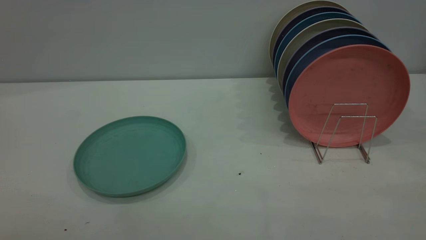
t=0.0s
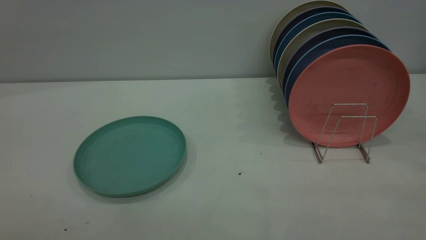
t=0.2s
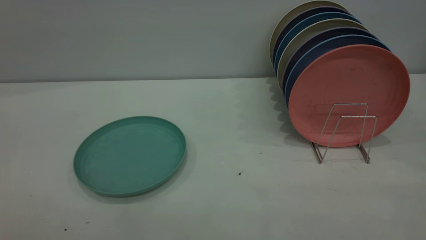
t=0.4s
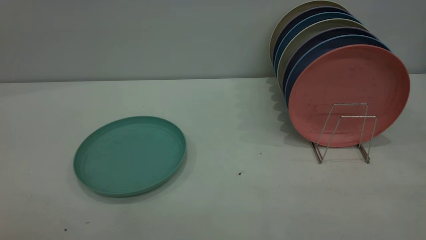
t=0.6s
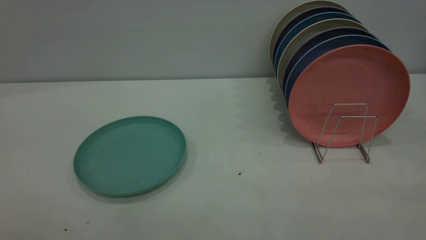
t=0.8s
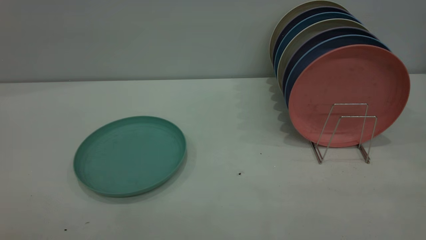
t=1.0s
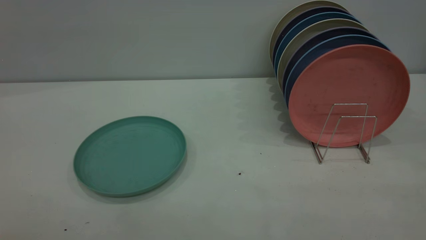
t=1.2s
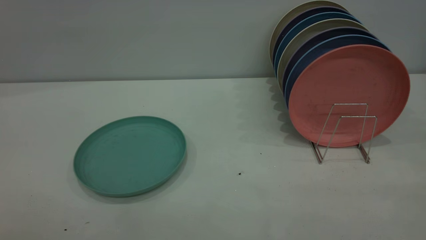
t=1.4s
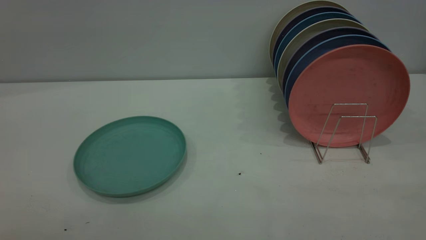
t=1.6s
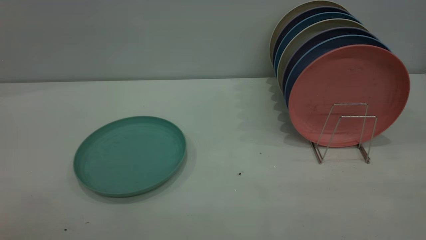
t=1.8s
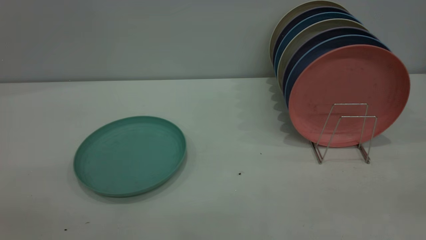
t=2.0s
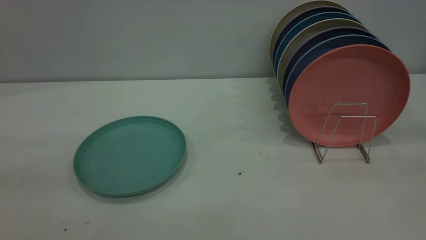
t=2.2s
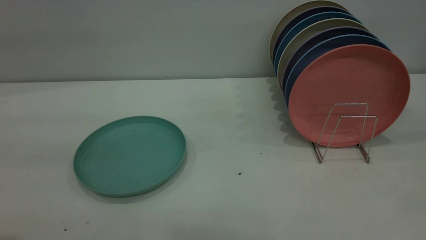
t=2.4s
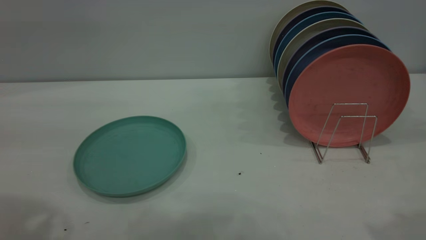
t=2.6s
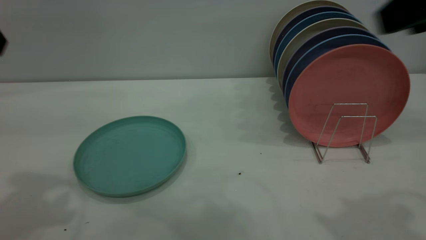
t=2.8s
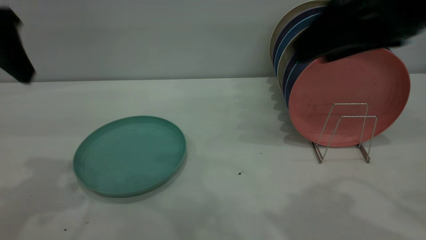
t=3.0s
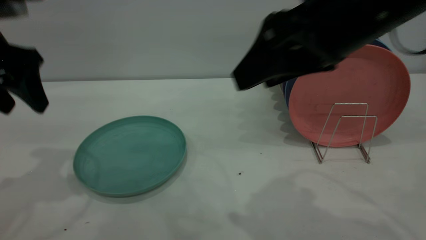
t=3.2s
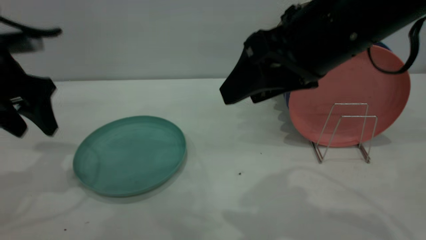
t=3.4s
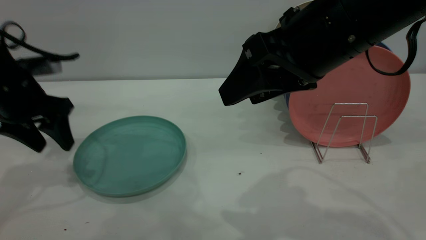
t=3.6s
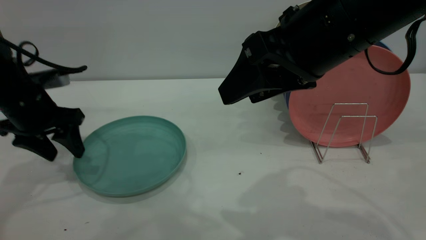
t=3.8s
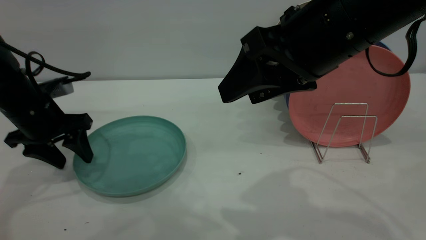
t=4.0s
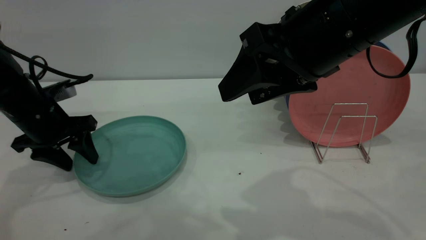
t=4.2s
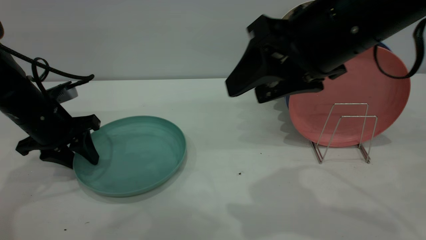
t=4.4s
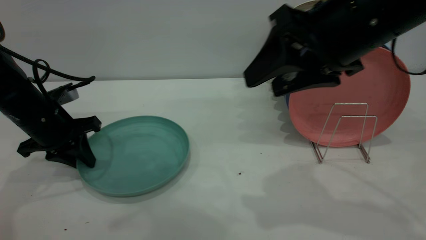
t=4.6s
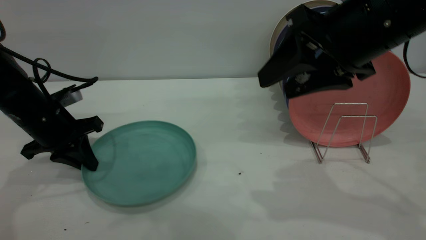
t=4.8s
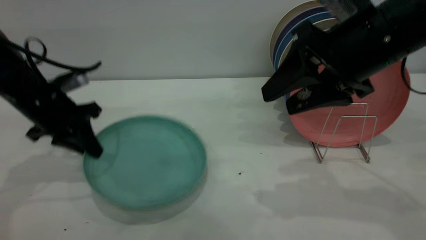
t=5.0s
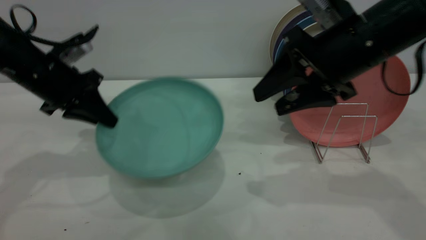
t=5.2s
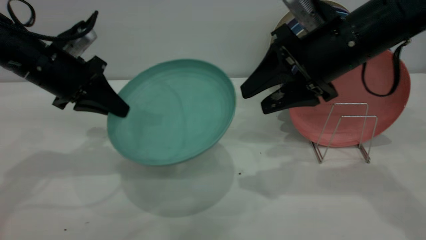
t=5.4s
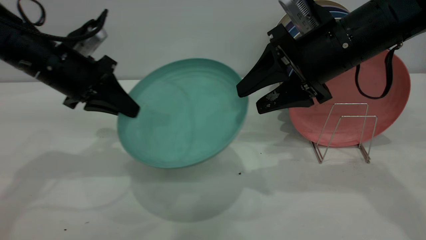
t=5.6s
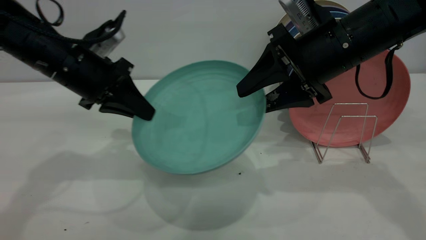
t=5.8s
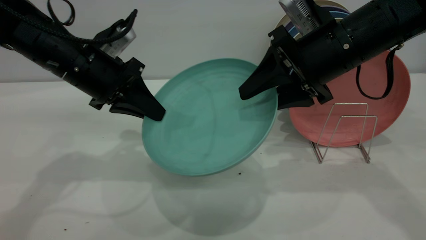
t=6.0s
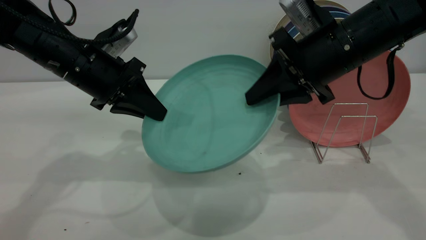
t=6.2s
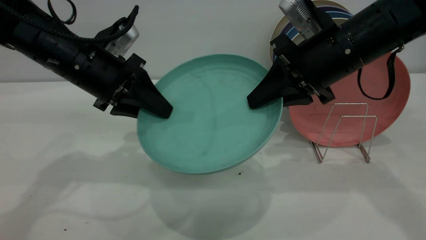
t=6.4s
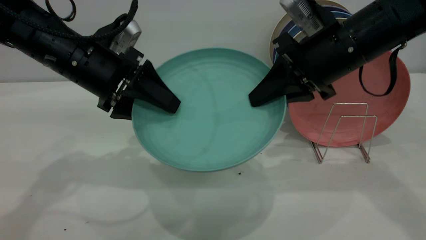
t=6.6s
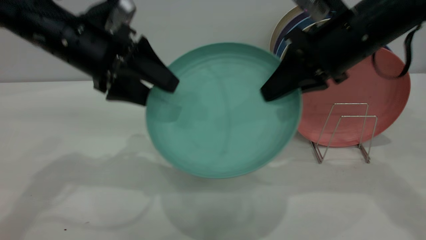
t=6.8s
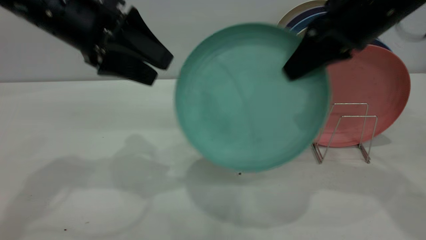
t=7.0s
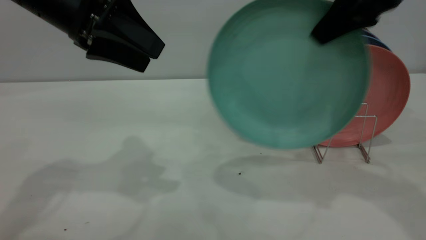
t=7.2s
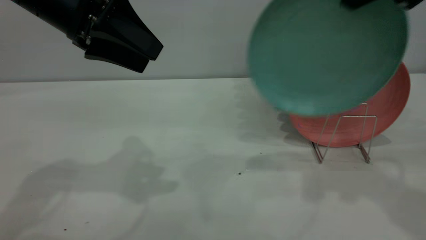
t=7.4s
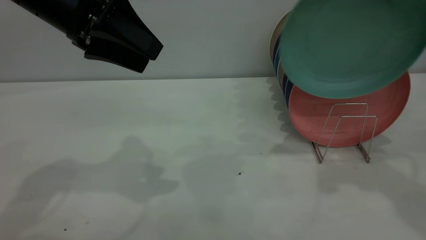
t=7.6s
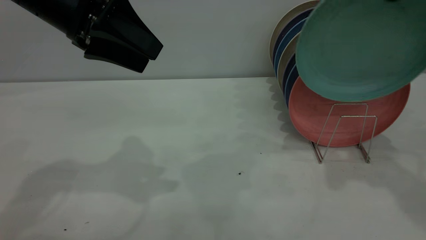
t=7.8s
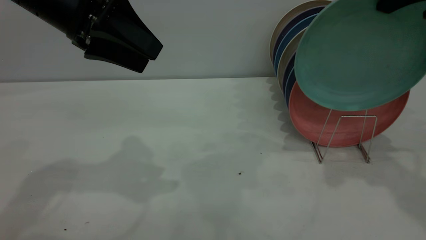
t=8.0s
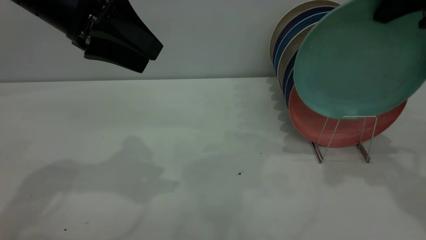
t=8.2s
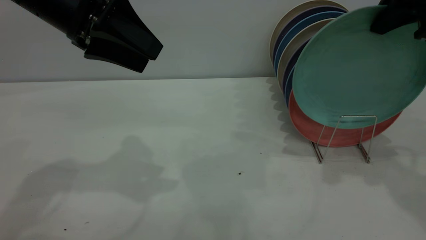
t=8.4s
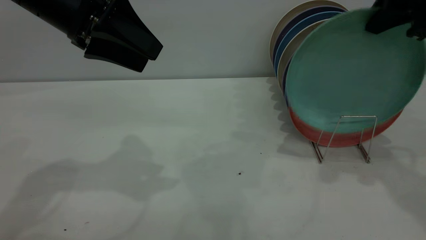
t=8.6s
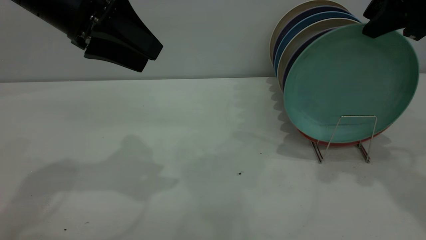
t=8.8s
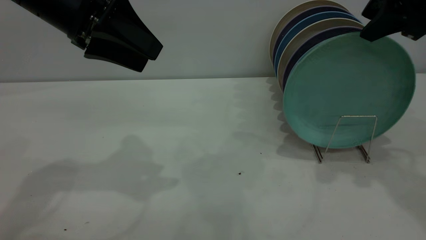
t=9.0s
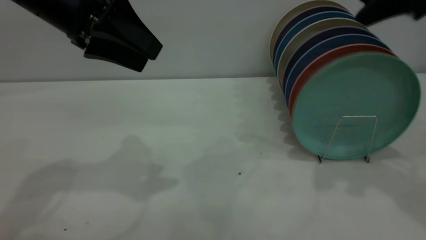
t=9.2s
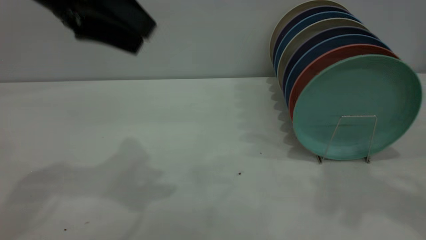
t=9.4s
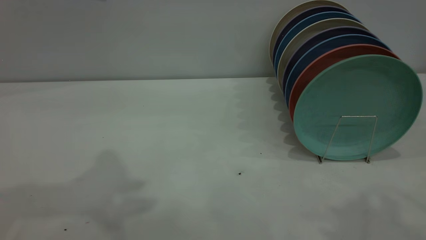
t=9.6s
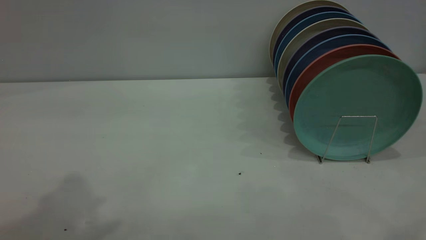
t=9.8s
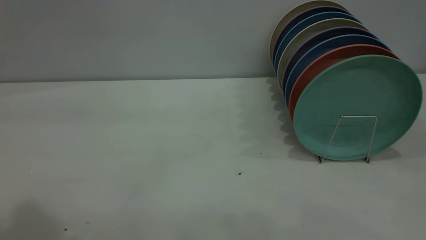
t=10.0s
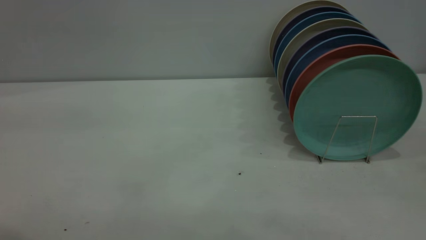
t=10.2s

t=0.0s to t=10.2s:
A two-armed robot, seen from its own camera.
Task of the whole recording: the left gripper grasp the green plate, the left gripper pass the green plate to the right gripper, and the right gripper place the green plate on the plate rack.
Step, t=0.0s to t=4.8s: Pick up the plate with the left gripper.
Step, t=5.0s to t=7.0s: Pass the plate from the left gripper to the right gripper.
Step, t=7.2s to t=9.2s: Place the plate on the shelf.
t=0.0s to t=1.4s: Both grippers stay about where they are.
t=1.4s to t=3.0s: The left gripper is displaced forward by approximately 35 cm, while the right gripper heads forward and to the left, covering roughly 30 cm.
t=3.0s to t=4.4s: The right gripper changes place by roughly 5 cm, while the left gripper goes roughly 20 cm downward and forward.
t=4.4s to t=5.8s: The left gripper is displaced to the right and upward by about 10 cm, and closes its fingers. Meanwhile the right gripper travels forward and downward by roughly 10 cm.
t=5.8s to t=7.2s: The right gripper travels upward and to the right by some 15 cm, and closes up. Meanwhile the left gripper moves upward, roughly 10 cm, and opens.
t=7.2s to t=8.8s: The right gripper shifts by about 5 cm, and opens.
t=8.8s to t=10.2s: The left gripper moves upward and backward, approximately 30 cm. Meanwhile the right gripper heads backward, covering approximately 30 cm.

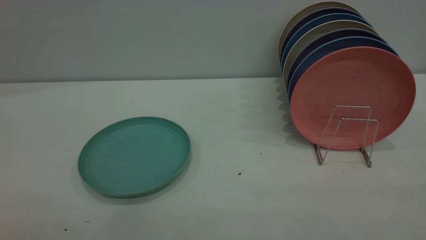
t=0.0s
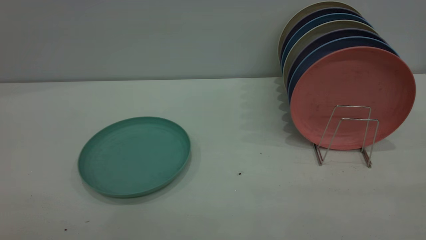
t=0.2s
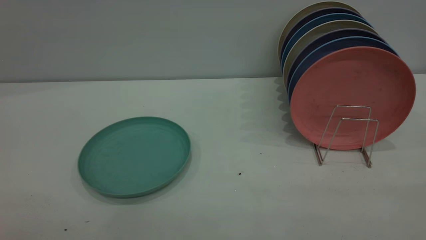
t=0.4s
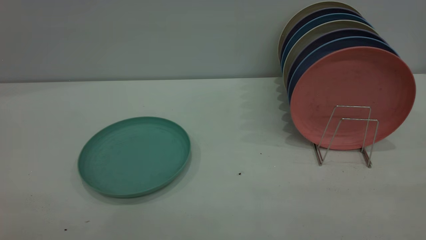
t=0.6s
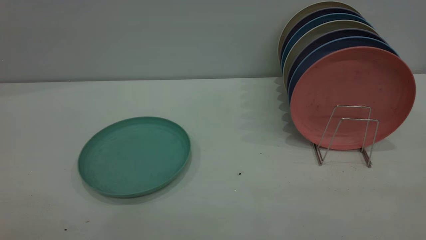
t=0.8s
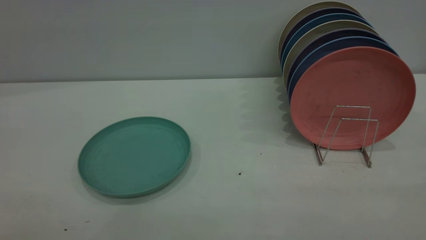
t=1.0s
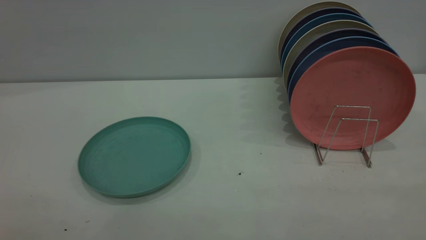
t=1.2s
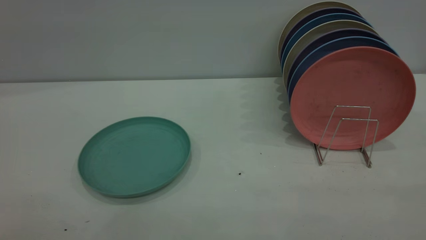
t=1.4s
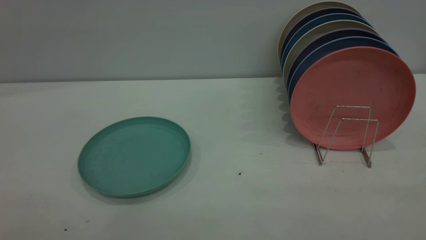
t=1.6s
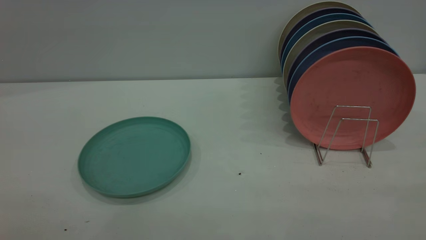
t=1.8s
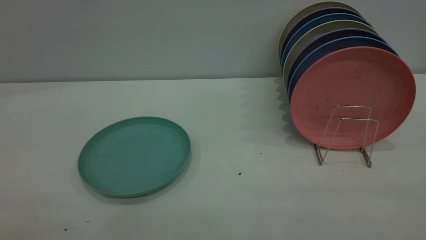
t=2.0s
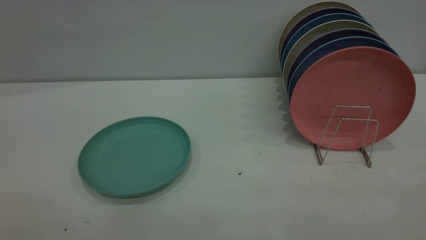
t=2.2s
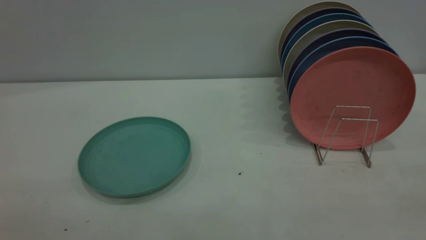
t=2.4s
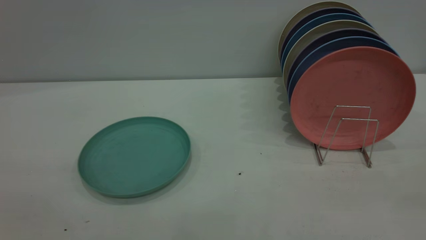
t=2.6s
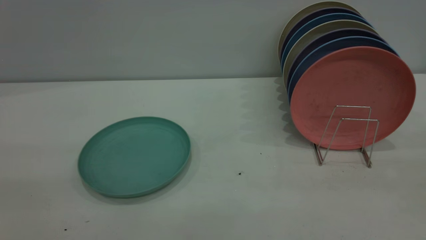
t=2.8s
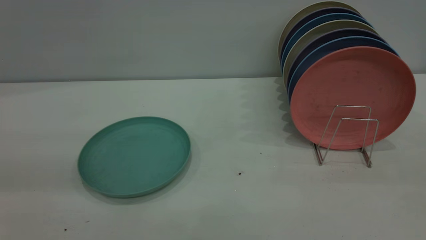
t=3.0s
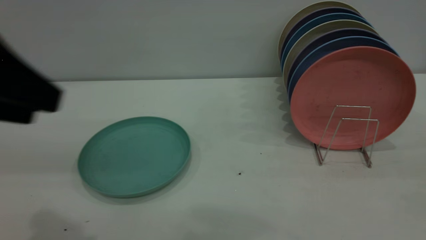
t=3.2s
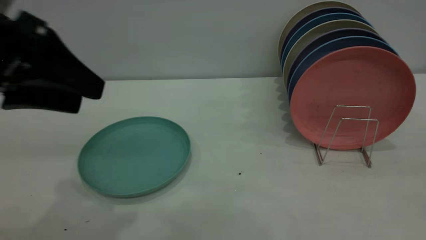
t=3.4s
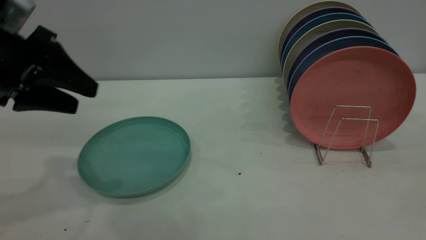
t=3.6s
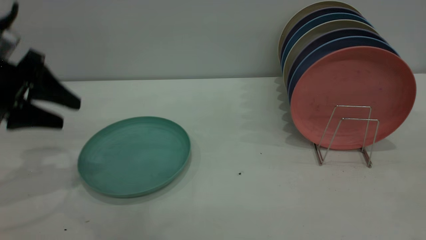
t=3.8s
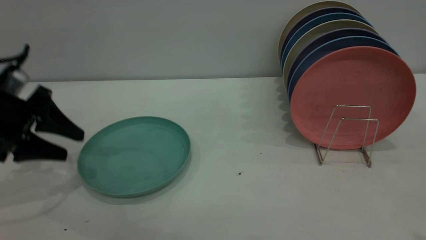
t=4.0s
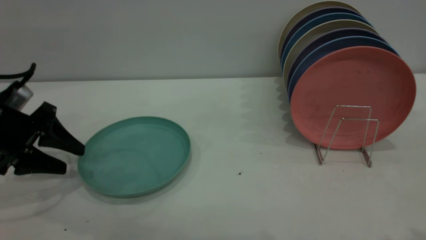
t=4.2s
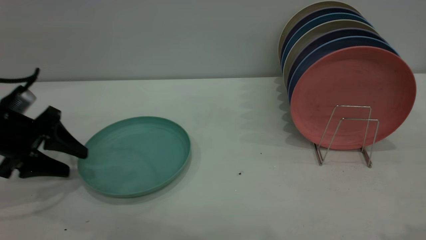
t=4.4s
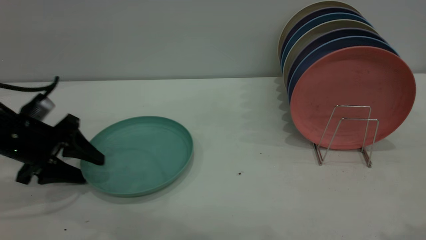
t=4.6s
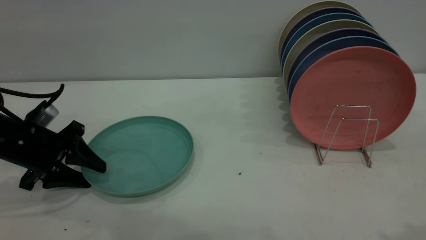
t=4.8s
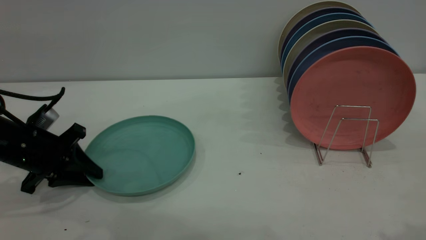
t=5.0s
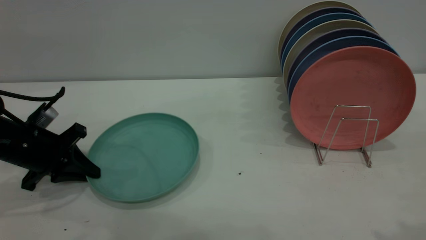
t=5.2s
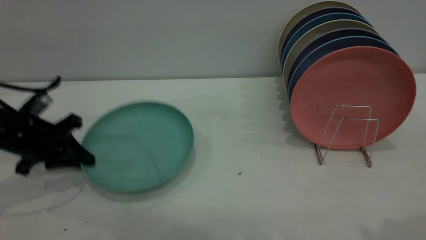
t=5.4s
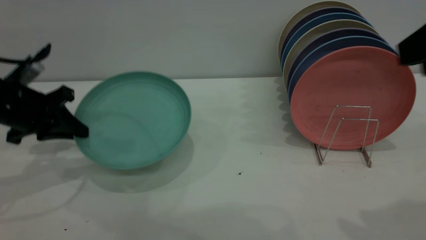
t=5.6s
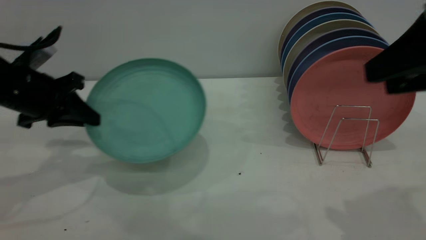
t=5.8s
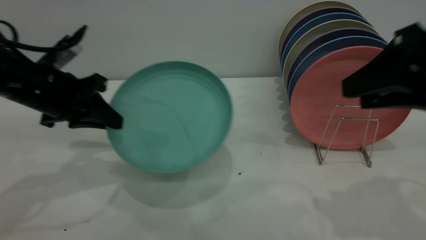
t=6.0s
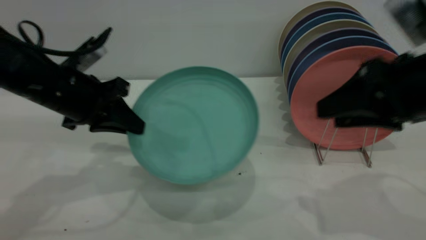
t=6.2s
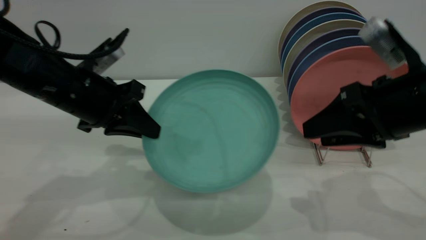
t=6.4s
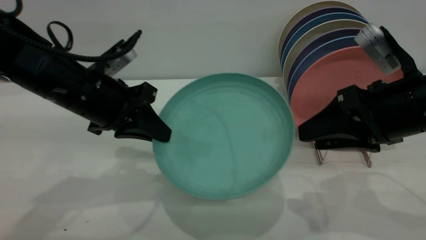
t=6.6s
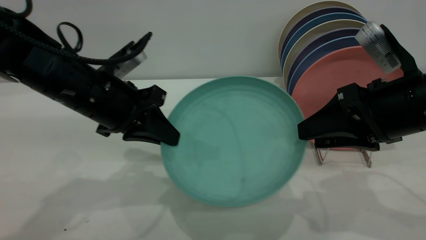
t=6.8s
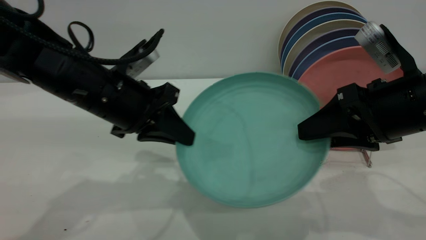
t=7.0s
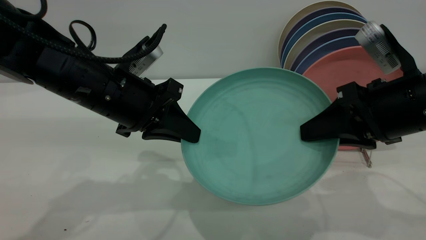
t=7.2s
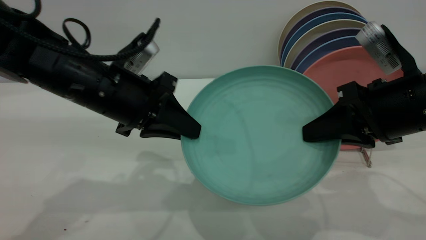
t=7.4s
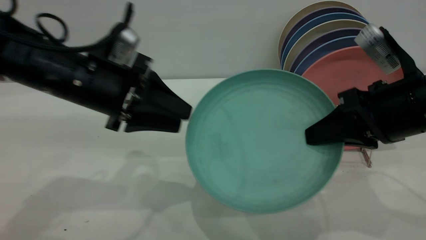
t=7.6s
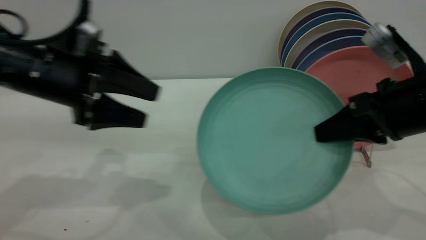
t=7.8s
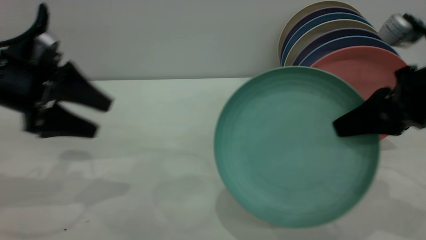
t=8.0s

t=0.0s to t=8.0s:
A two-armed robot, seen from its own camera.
Task of the whole recording: the left gripper grasp the green plate, the left gripper pass the green plate to the right gripper, and the right gripper place the green plate on the plate rack.
Step, t=0.0s to t=5.6s: Pick up the plate with the left gripper.
Step, t=5.8s to t=7.6s: Pass the plate from the left gripper to the right gripper.
t=0.0s to t=1.6s: The two grippers keep their place.
t=1.6s to t=3.2s: The left gripper goes roughly 20 cm forward.
t=3.2s to t=4.8s: The left gripper shifts about 25 cm downward and forward.
t=4.8s to t=6.4s: The left gripper heads to the right and upward, covering approximately 15 cm, and closes its fingers, while the right gripper shifts some 20 cm downward and forward.
t=6.4s to t=8.0s: The right gripper closes. The left gripper travels to the left by about 10 cm, and opens.
